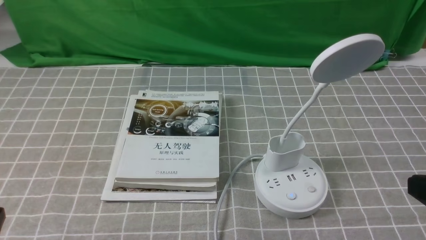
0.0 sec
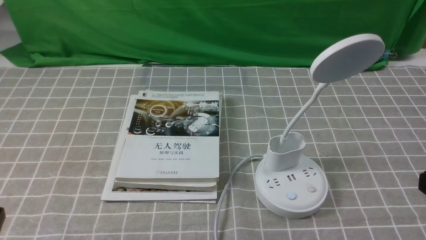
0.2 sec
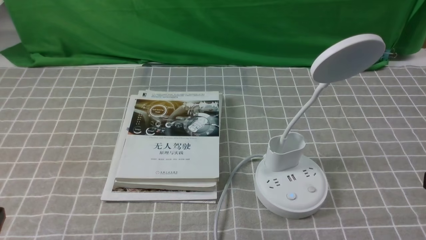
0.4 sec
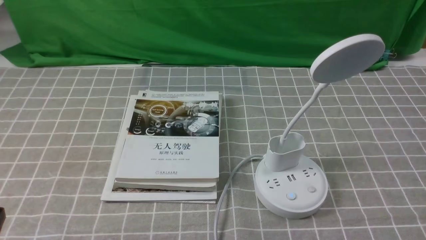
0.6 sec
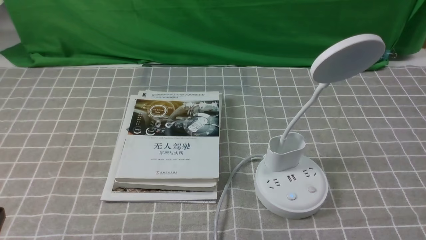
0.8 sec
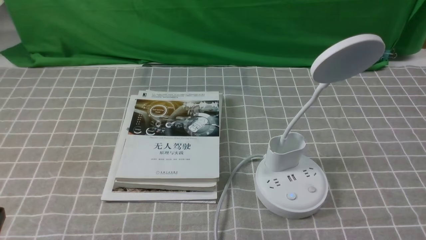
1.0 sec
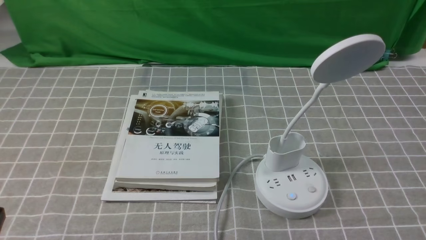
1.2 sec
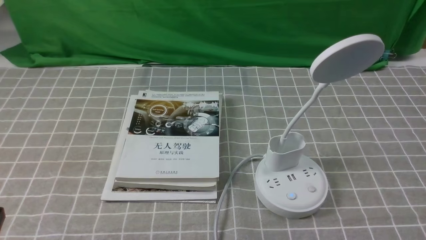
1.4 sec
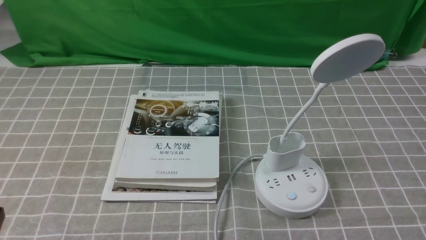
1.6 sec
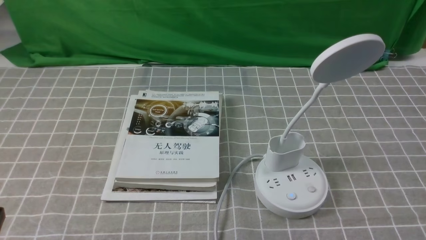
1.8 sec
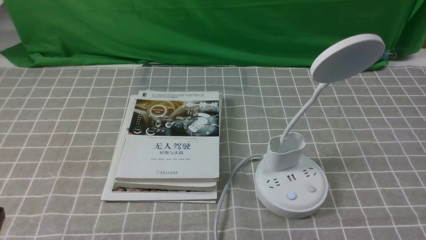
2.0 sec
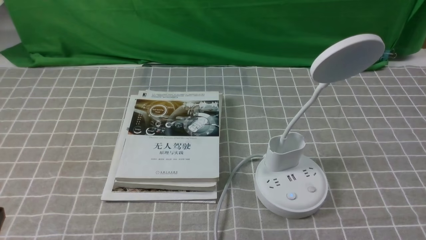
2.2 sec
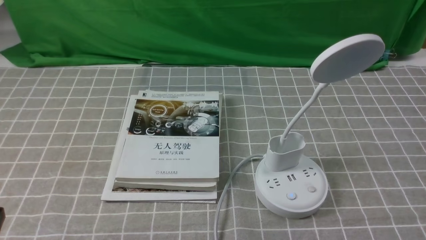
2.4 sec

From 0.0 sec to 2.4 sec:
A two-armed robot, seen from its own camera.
Task of the whole recording: turn off the desk lamp on the grey coffee tablecloth by hand.
From 0.0 sec to 1.2 sec: The right gripper travels to the right and backward by approximately 5 cm.

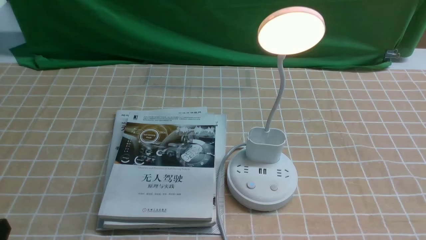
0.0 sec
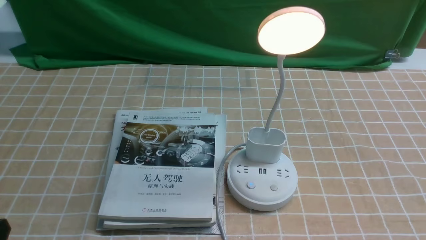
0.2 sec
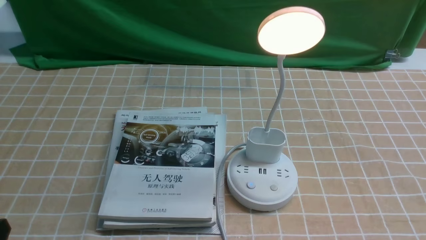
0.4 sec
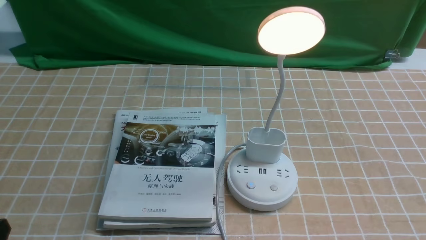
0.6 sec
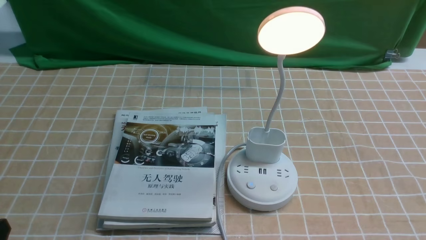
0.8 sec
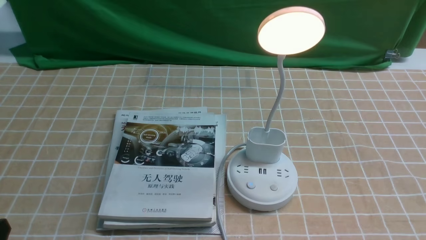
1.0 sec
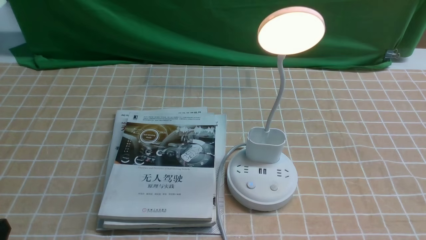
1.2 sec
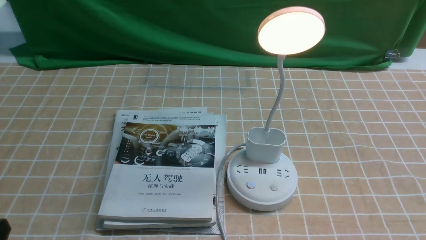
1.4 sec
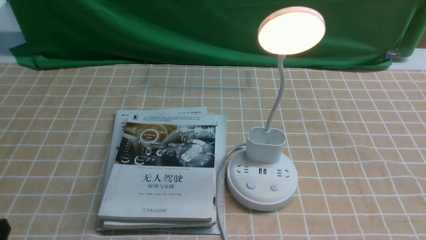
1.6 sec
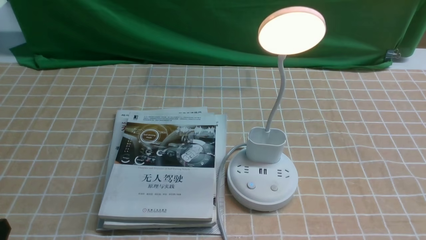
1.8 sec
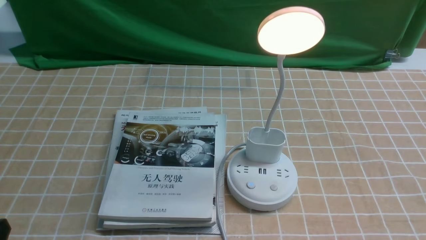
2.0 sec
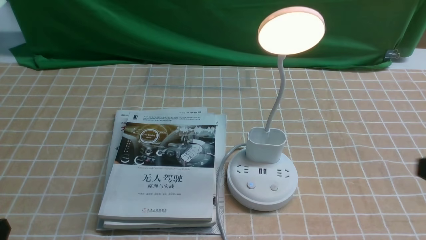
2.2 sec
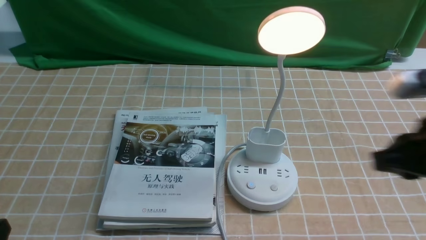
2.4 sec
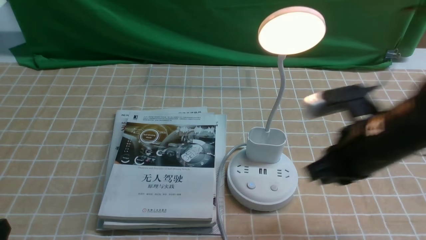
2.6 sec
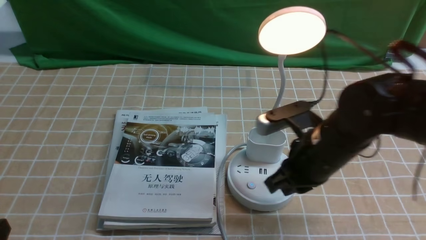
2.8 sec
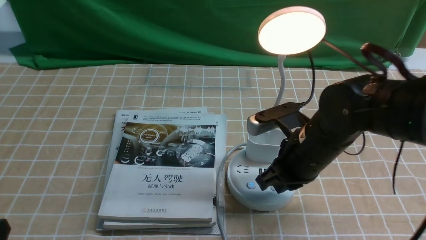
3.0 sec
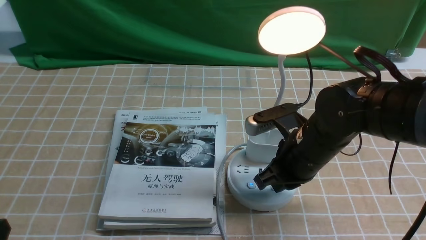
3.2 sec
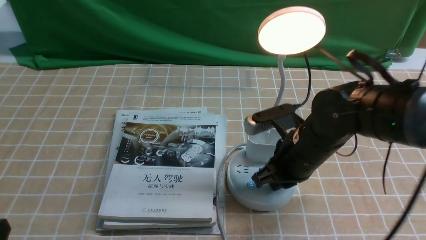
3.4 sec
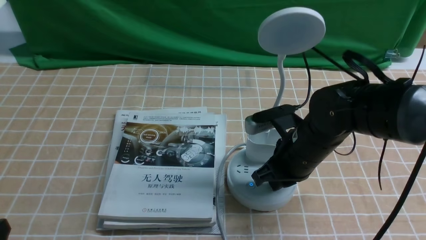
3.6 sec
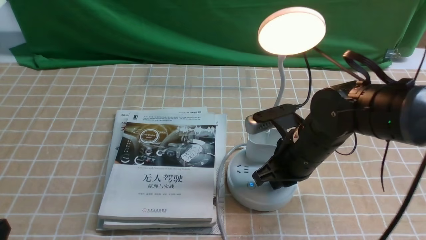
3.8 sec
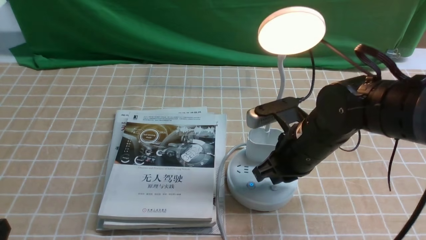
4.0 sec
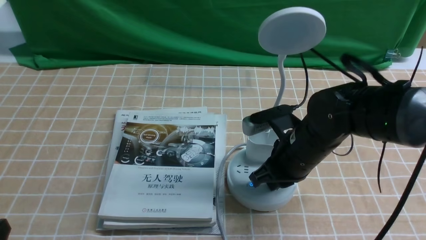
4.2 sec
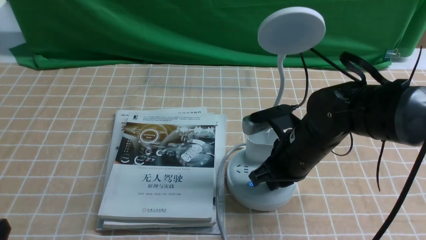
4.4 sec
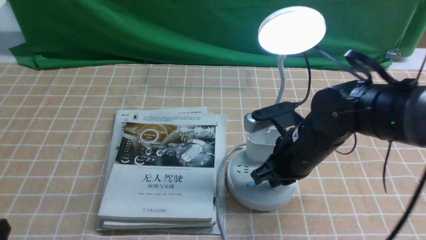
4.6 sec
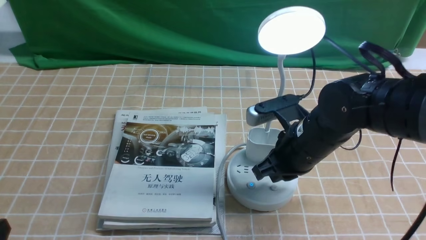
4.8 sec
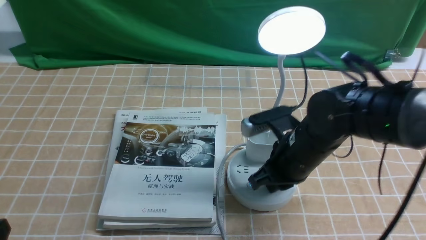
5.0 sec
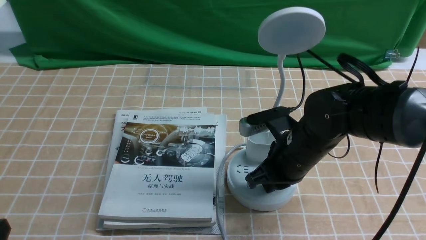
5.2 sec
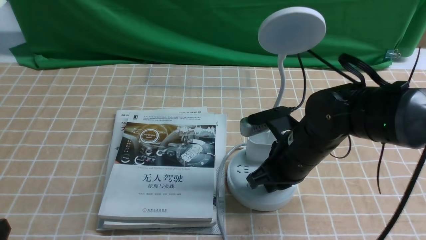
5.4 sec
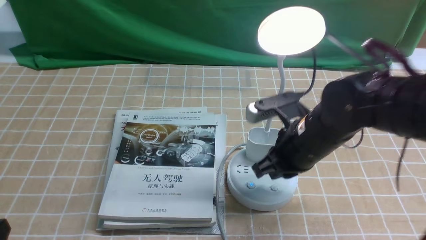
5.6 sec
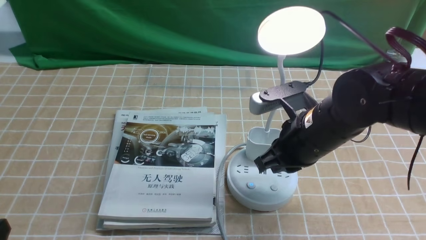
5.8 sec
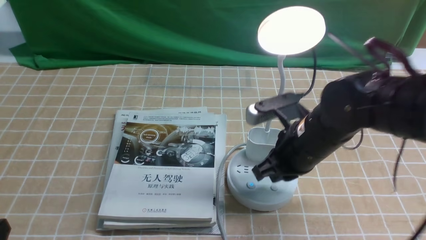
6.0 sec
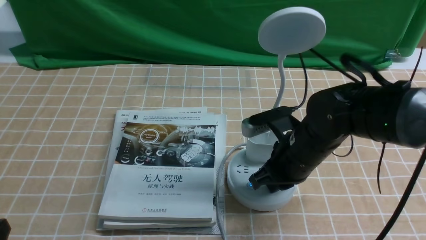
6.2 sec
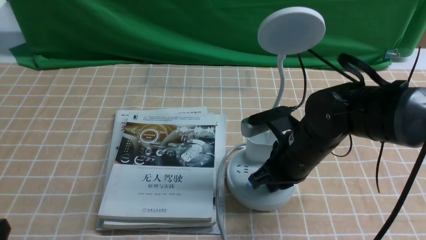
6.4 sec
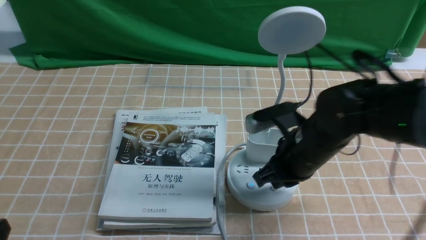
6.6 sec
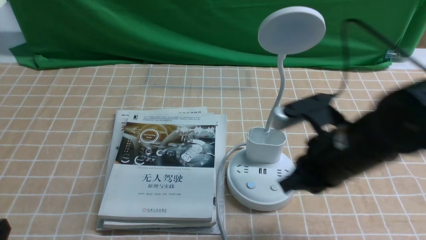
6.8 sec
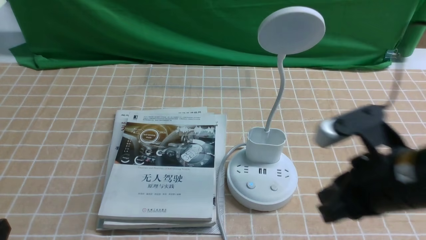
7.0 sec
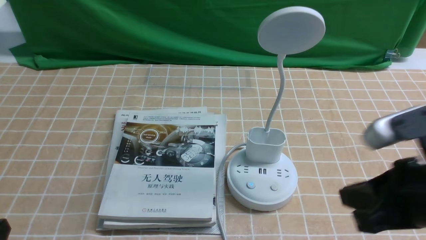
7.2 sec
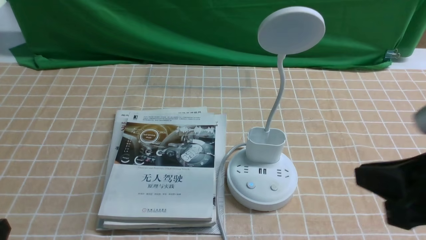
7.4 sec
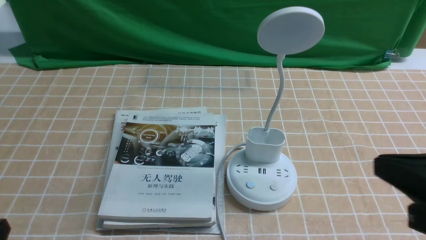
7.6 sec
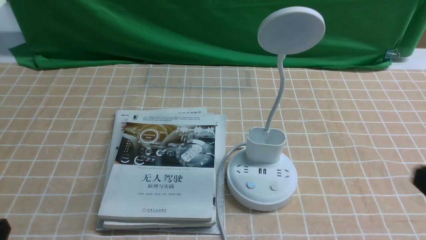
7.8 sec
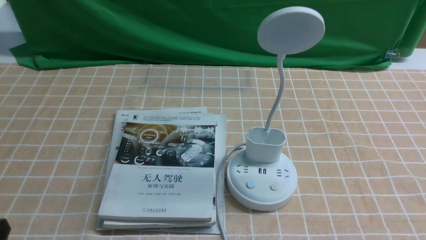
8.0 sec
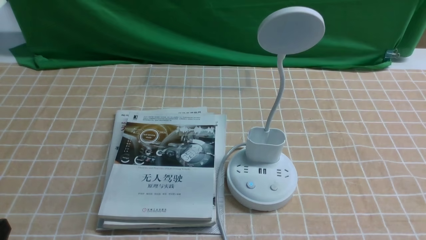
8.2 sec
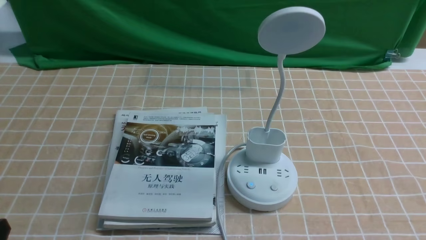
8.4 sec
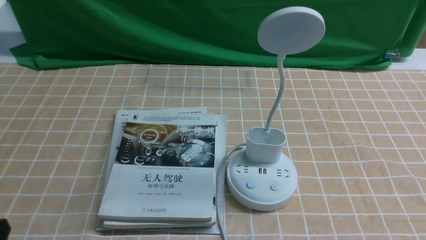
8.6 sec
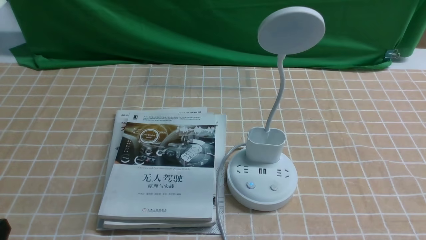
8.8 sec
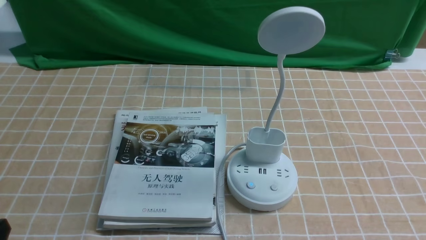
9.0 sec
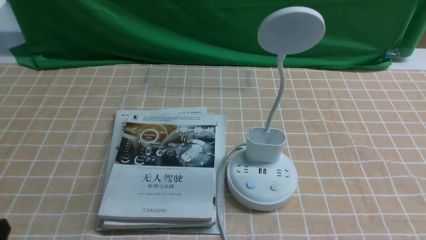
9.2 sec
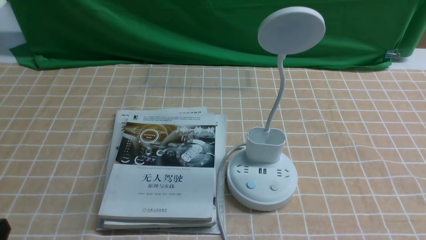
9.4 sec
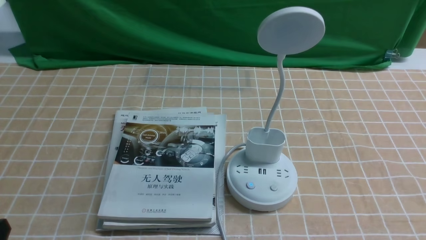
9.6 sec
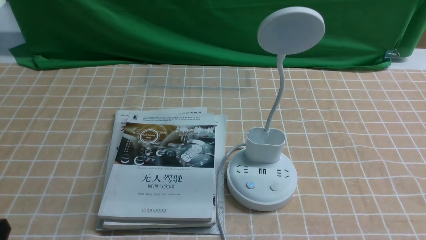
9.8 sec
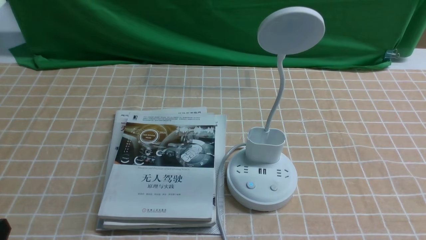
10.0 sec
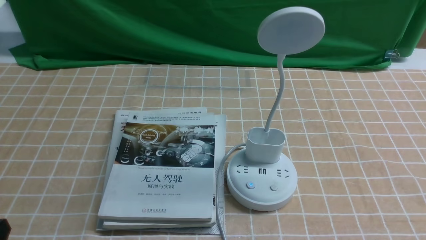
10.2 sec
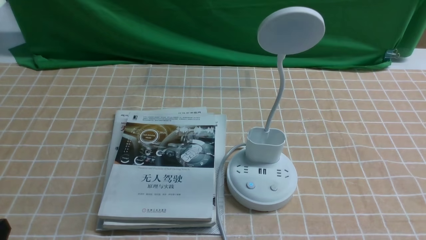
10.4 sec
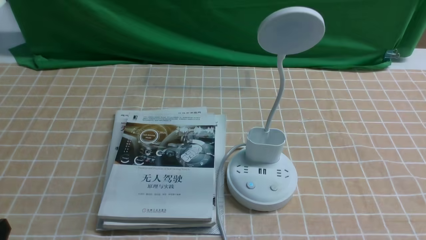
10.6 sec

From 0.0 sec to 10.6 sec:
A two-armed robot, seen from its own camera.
Task of the whole recording: turn off the desk lamp on the light coffee tablecloth by hand.
Step, from 0.0 sec to 6.0 sec: use the right arm to press the button switch on the lamp holder.
From 1.6 sec to 3.0 sec: The right gripper shifts about 30 cm forward and to the left, and closes.
From 4.6 sec to 6.0 sec: The grippers stay close to where they were, moving slightly.
From 6.0 sec to 7.6 sec: The right gripper moves backward, to the right and upward, approximately 25 cm.
From 7.6 sec to 9.0 sec: The right gripper moves downward, to the right and backward, roughly 15 cm.
